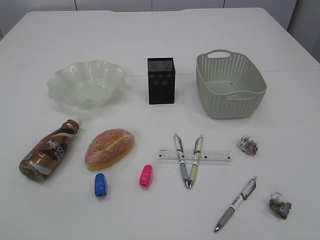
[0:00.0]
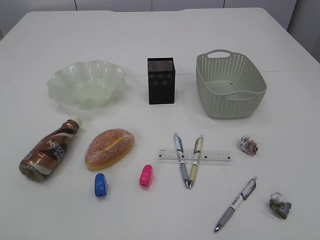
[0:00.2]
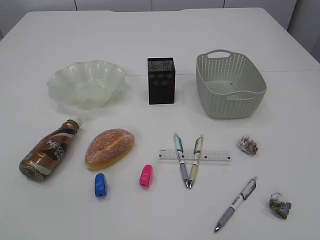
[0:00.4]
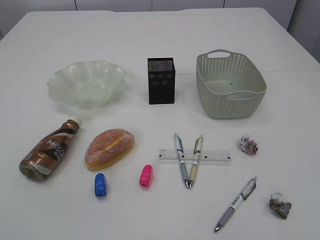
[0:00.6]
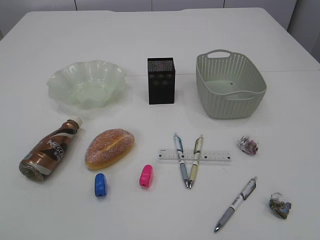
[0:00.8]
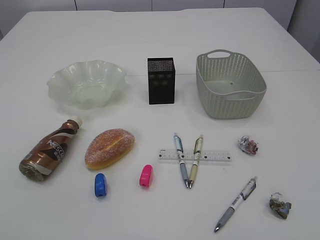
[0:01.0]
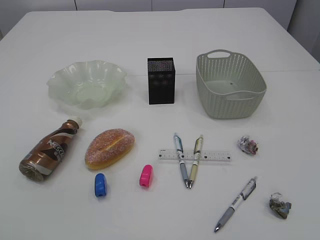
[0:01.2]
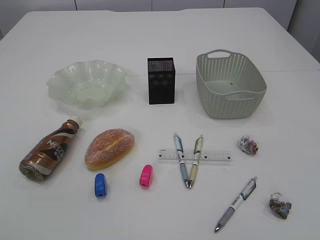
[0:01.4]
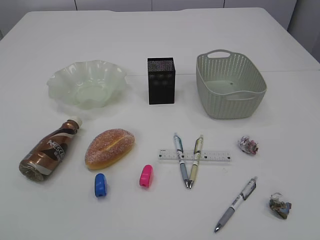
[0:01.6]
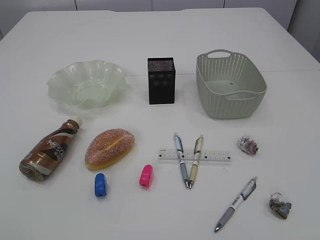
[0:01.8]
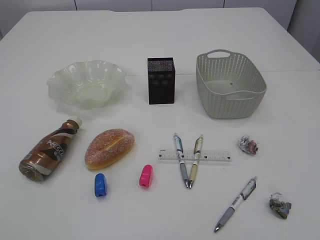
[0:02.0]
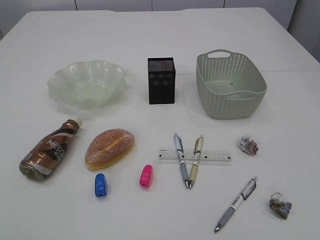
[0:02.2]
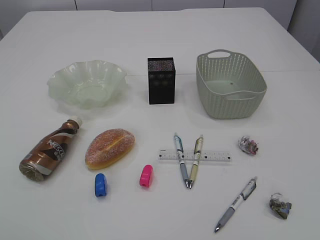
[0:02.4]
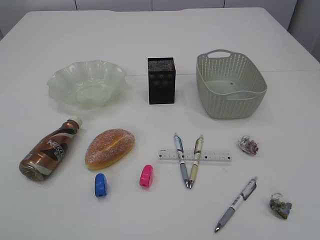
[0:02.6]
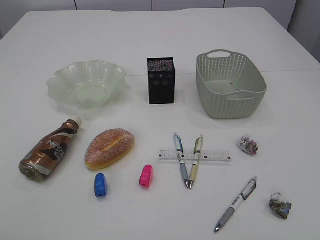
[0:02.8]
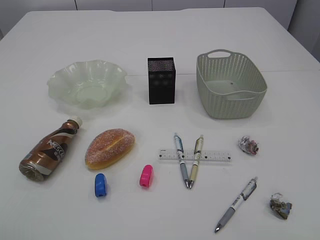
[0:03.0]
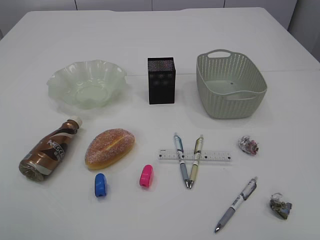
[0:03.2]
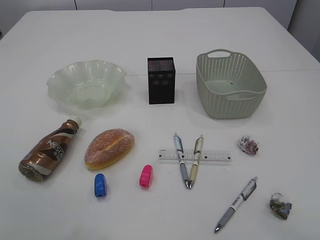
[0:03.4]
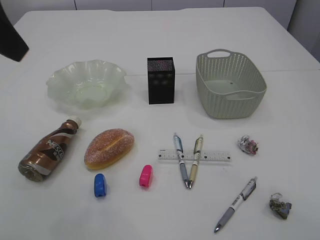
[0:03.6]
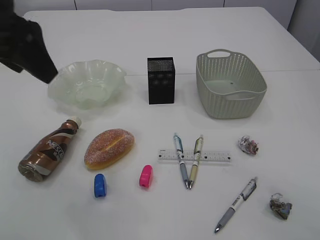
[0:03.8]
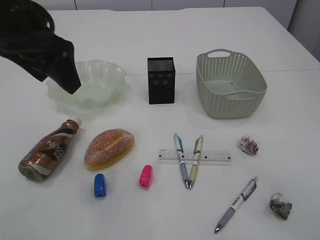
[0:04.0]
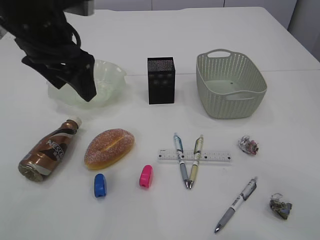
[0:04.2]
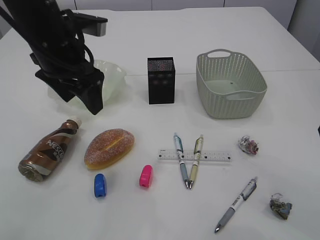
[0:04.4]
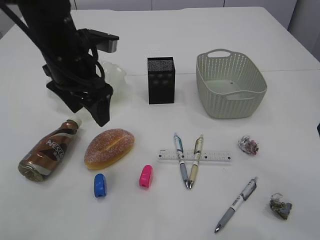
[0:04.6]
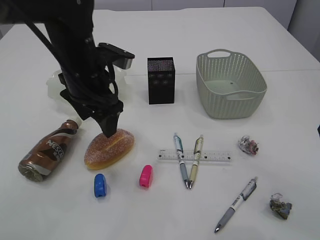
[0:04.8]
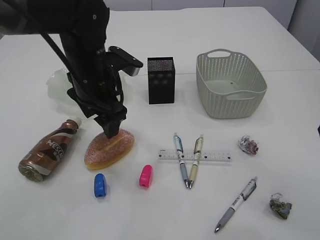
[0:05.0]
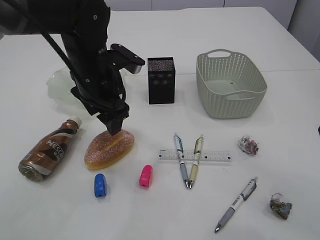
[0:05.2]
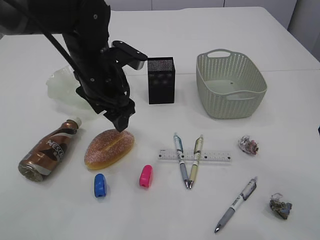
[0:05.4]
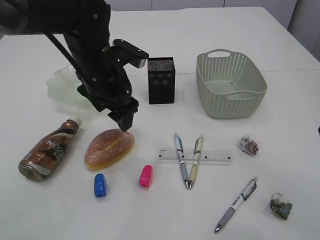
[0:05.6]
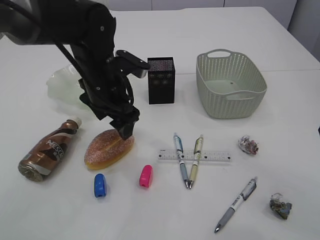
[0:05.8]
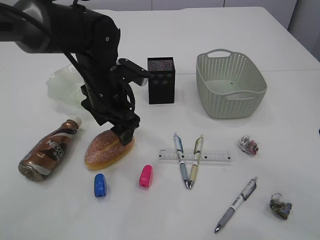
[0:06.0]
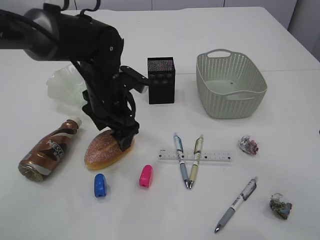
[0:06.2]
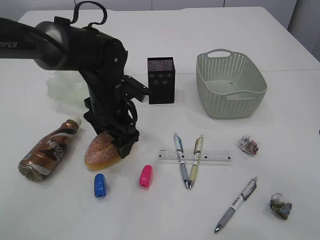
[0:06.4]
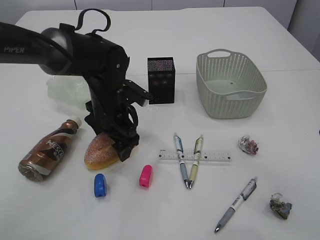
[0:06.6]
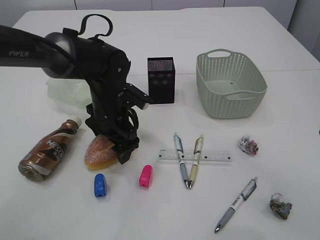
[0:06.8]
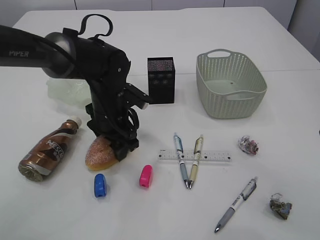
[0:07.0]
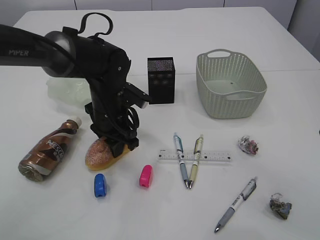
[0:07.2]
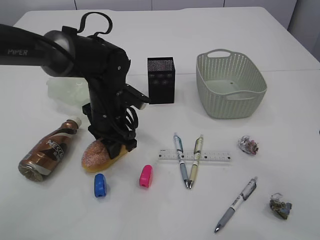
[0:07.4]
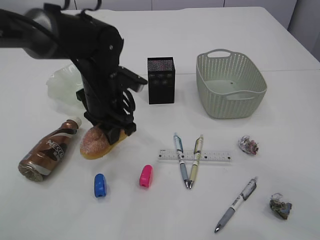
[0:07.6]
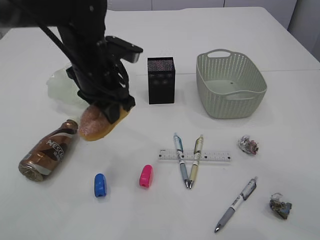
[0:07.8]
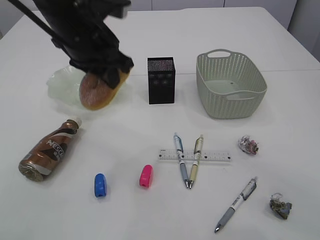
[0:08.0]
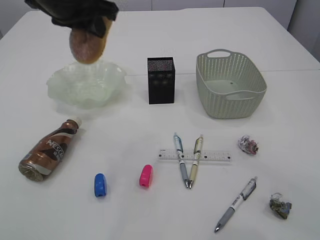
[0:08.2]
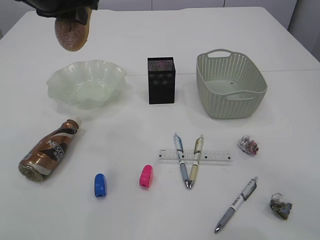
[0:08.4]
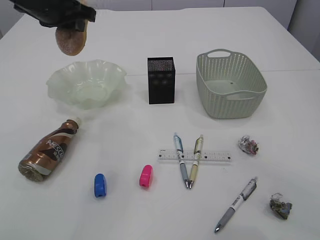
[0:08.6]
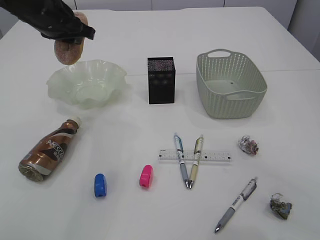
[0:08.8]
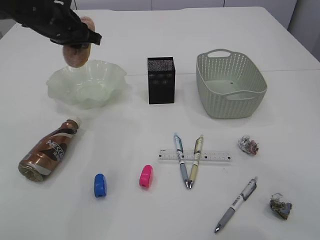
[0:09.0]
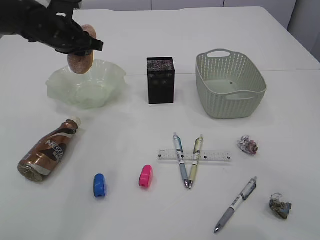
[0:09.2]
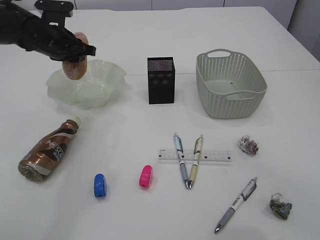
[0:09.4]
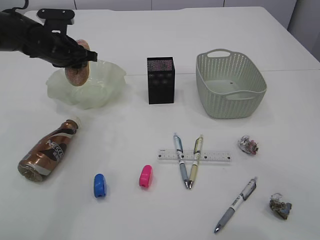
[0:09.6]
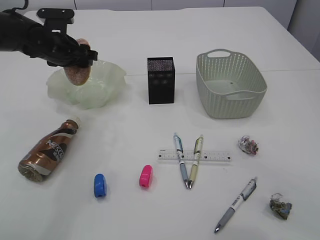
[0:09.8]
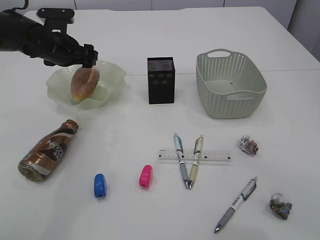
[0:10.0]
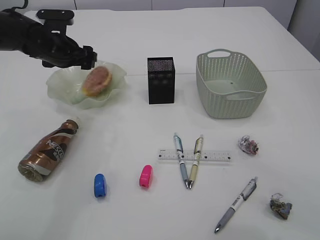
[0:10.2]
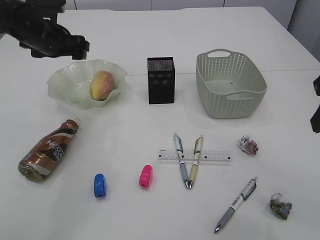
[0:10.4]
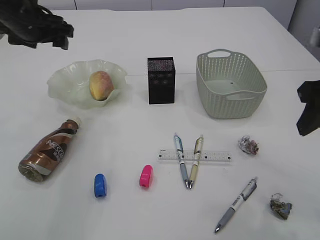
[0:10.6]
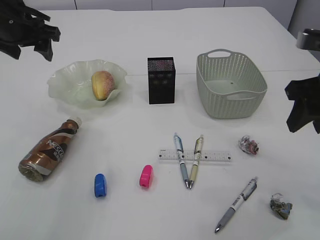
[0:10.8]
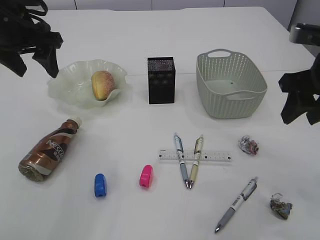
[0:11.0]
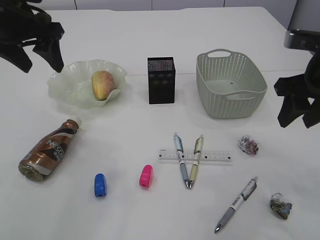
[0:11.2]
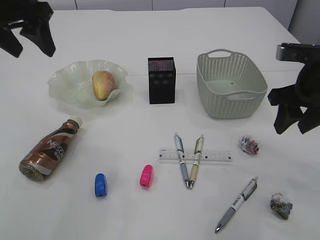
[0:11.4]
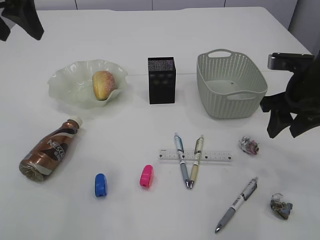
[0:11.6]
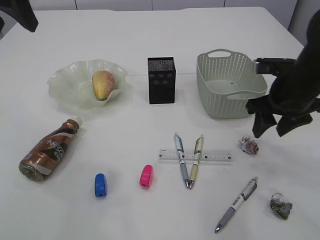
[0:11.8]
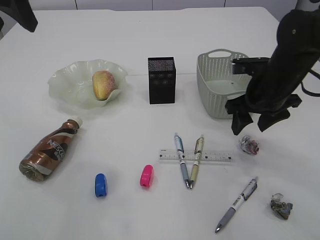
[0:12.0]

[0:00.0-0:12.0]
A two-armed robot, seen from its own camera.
Step, 0:08.0 to 0:10.4: place the bread in the plate.
0:03.0 to 0:04.4: The left gripper heads forward, downward and to the right, covering roughly 30 cm.
0:04.4 to 0:06.0: The left gripper heads downward and to the right, covering roughly 10 cm.
0:06.0 to 0:07.6: The left gripper closes up.
0:07.6 to 0:09.0: The left gripper travels to the left, upward and forward by roughly 15 cm.
0:09.0 to 0:10.4: The left gripper ends up some 5 cm from where it was, and opens.
0:10.4 to 0:12.0: The left gripper travels upward and backward by about 20 cm; the right gripper travels forward and downward by roughly 20 cm.

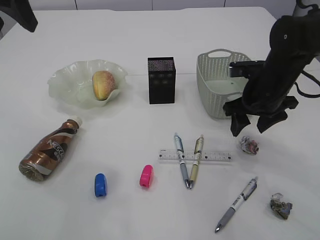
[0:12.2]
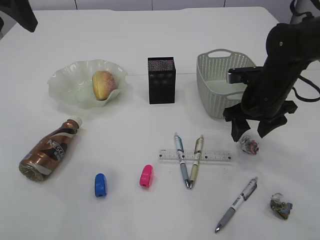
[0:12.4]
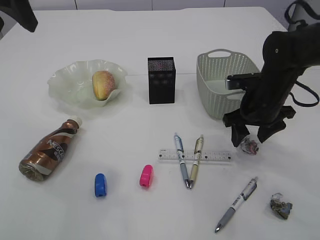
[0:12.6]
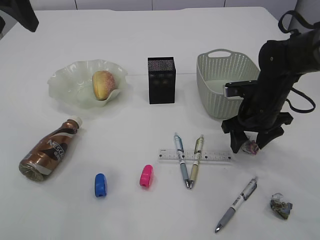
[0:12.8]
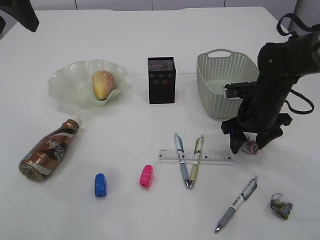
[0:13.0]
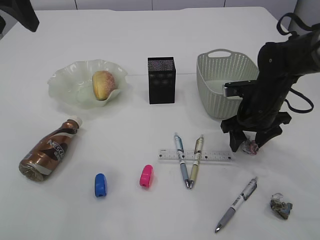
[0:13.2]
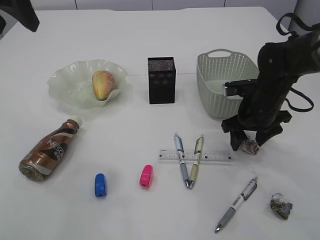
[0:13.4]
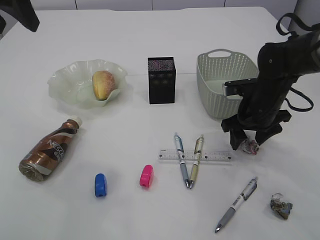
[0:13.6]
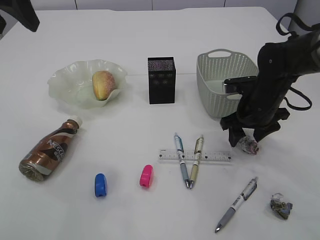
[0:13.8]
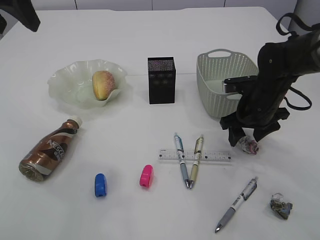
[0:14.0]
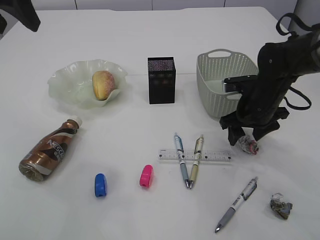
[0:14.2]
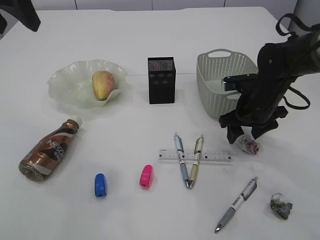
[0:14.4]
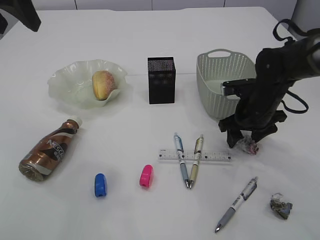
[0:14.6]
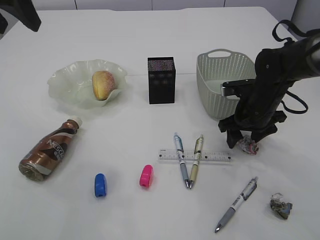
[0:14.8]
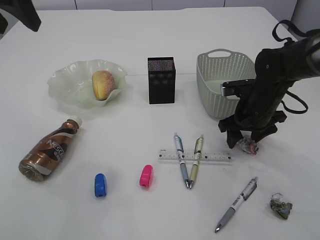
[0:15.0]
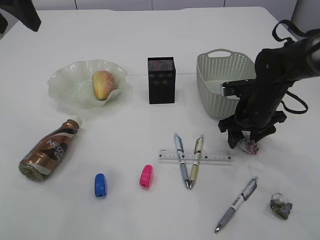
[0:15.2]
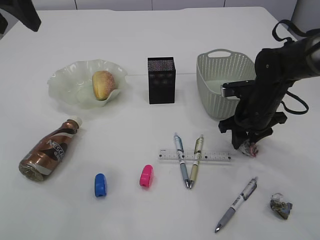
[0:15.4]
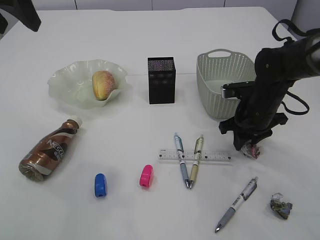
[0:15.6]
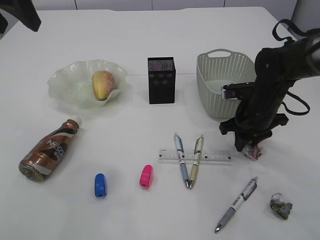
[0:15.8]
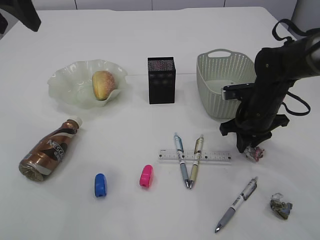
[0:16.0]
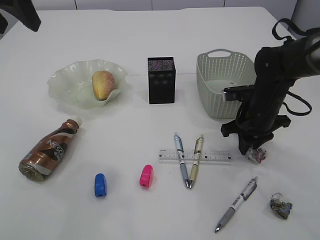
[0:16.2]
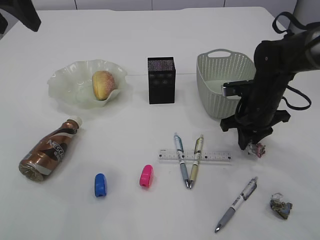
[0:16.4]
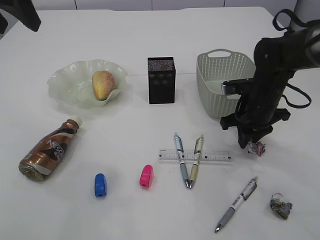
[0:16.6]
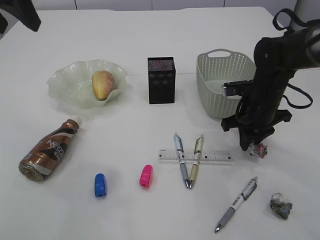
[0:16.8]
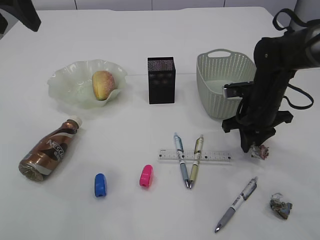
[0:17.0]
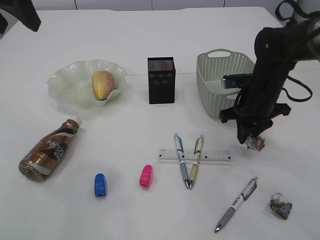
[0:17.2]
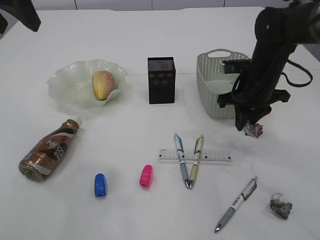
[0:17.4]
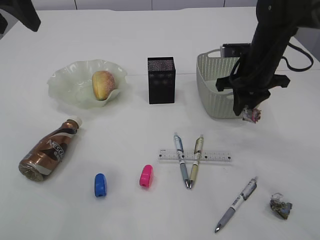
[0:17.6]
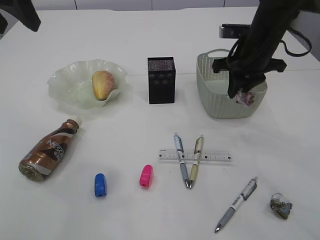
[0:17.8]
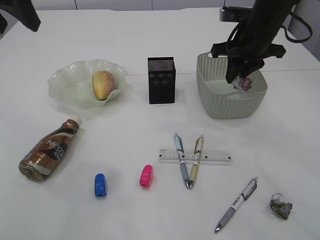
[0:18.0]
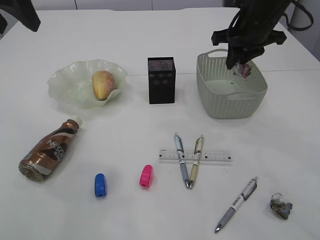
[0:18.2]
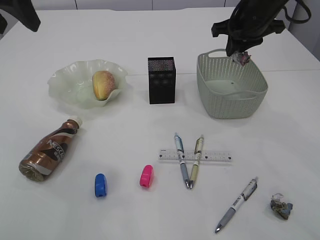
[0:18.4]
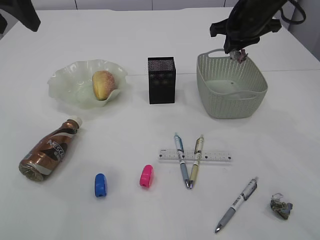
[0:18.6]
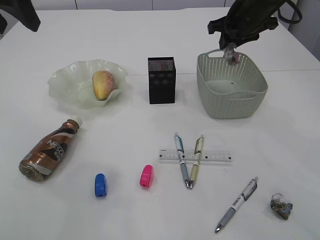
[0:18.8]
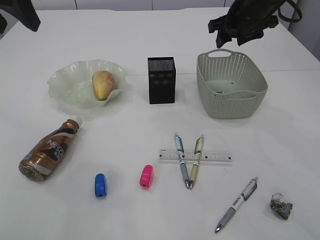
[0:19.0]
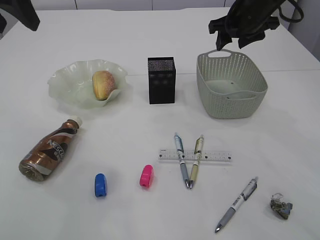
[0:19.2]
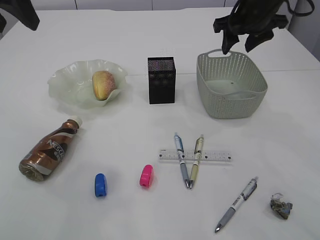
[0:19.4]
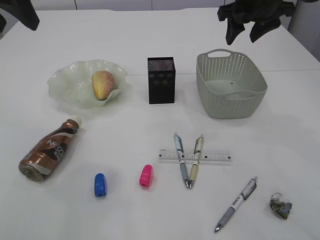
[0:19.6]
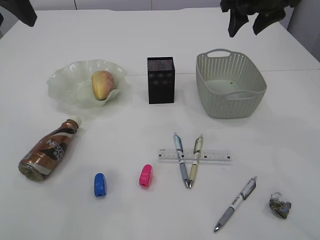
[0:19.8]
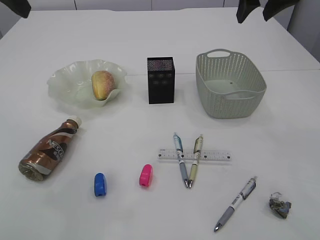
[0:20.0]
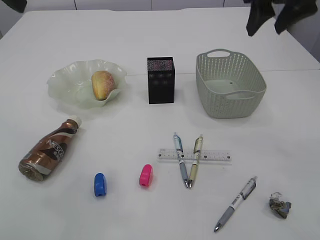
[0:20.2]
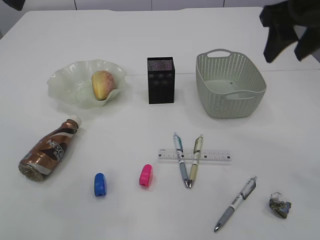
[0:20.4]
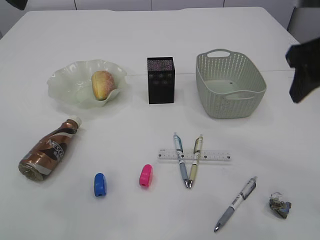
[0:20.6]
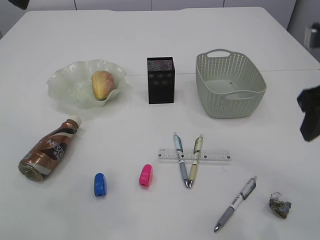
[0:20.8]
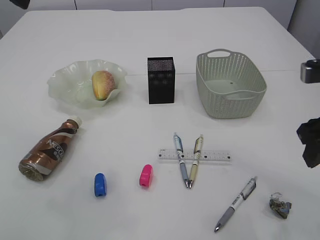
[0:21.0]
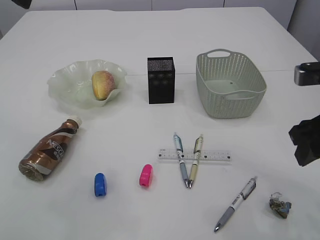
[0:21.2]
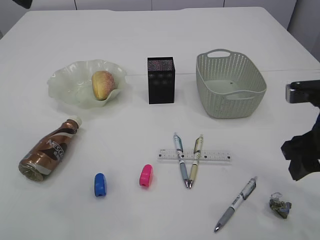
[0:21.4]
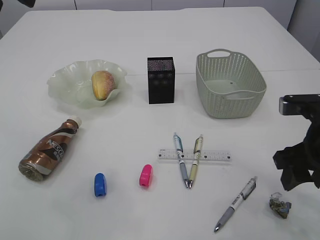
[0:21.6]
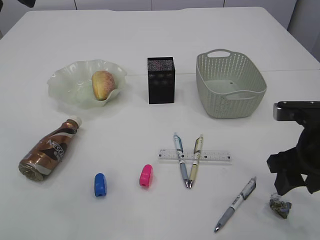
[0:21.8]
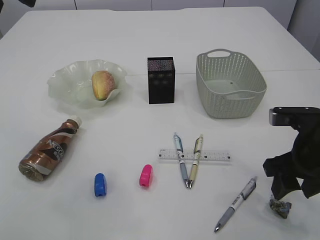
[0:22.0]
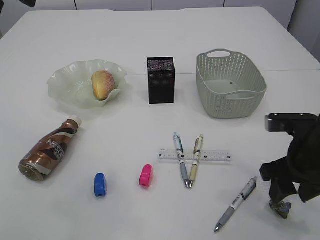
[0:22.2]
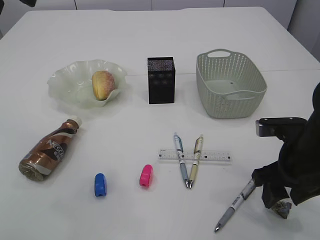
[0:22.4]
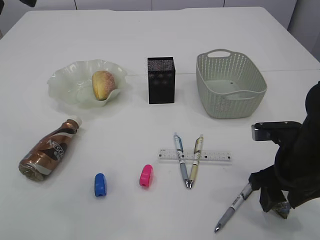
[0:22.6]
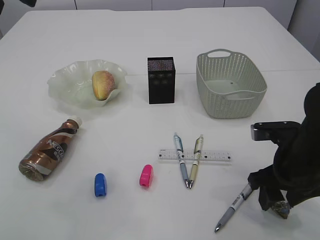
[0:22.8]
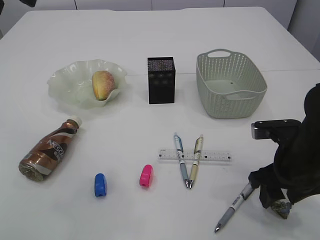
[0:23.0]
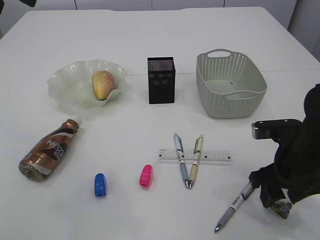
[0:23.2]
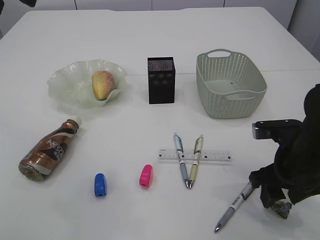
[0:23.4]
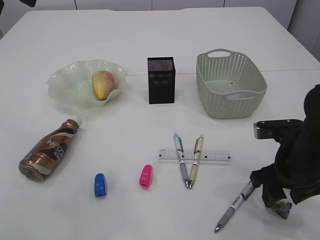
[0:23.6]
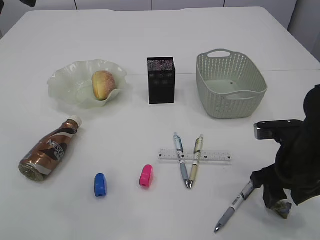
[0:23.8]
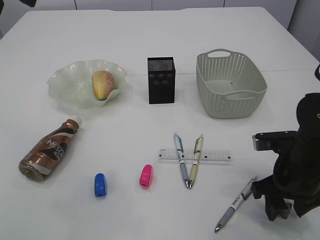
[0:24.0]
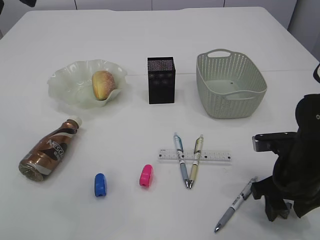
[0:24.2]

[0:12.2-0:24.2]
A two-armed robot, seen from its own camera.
Step, 0:12.2 to 0:17.0: Pick up the waste paper.
Step, 0:17.2 to 0:19.4: Place the waste paper in the basket.
0:12.2 to 0:13.8: The grippers move only a little.
0:13.8 to 0:15.2: Both grippers stay about where they are.
0:15.2 to 0:16.6: The right gripper closes its fingers.
0:16.6 to 0:18.2: The right gripper travels upward by roughly 15 cm.
0:18.2 to 0:19.8: The right gripper goes roughly 5 cm upward, and opens.
0:19.8 to 0:21.2: The right gripper moves backward, roughly 20 cm.
0:21.2 to 0:22.6: The right gripper heads downward, covering roughly 10 cm.
0:22.6 to 0:24.2: The grippers stay close to where they were, moving slightly.
